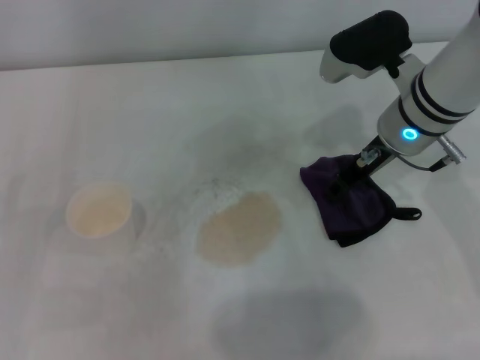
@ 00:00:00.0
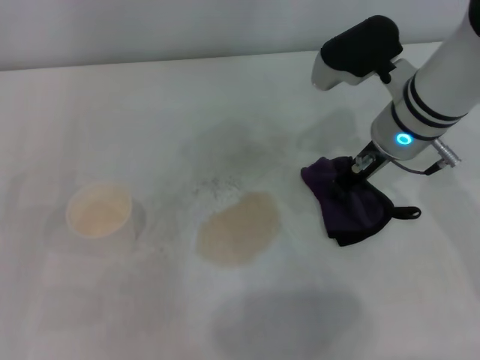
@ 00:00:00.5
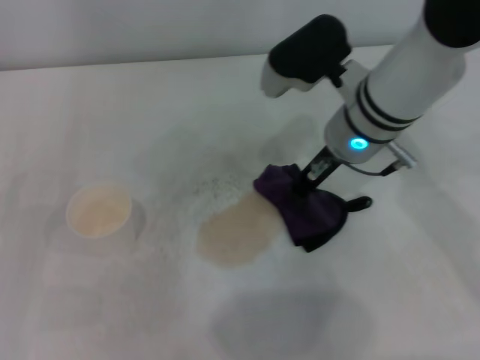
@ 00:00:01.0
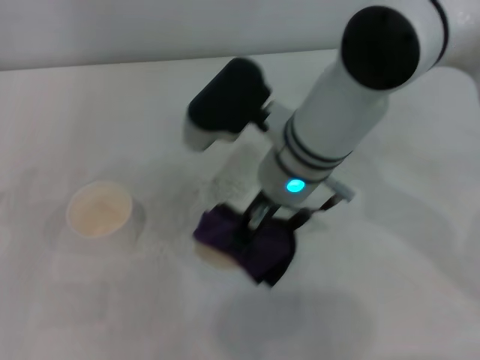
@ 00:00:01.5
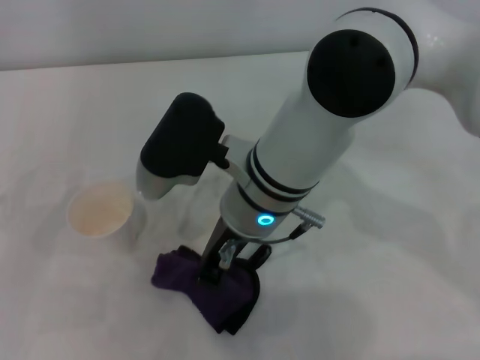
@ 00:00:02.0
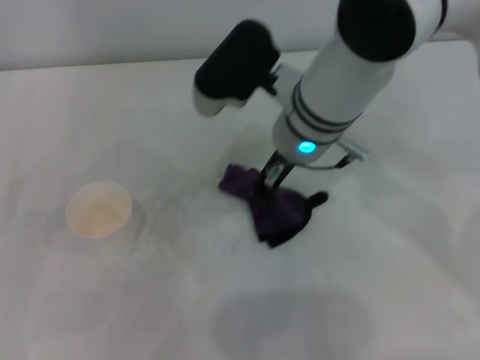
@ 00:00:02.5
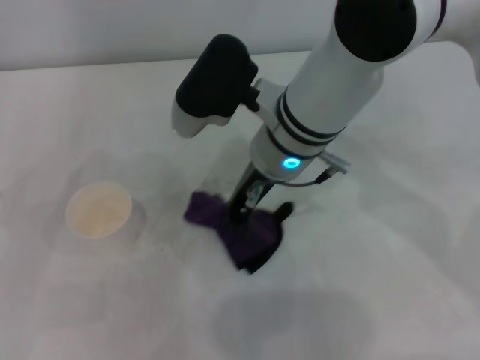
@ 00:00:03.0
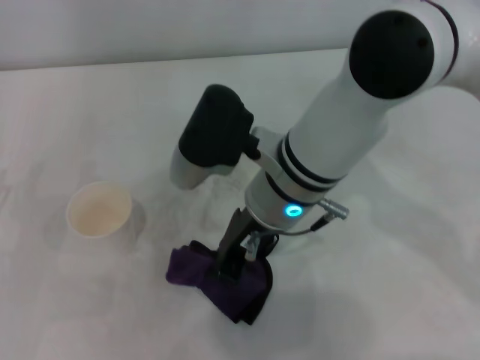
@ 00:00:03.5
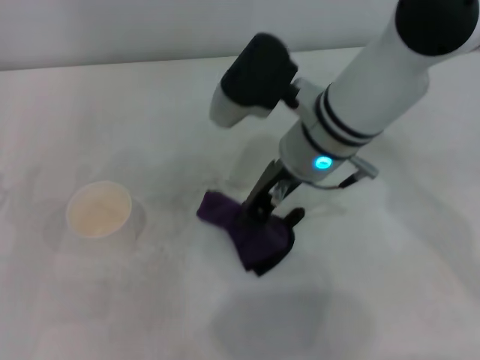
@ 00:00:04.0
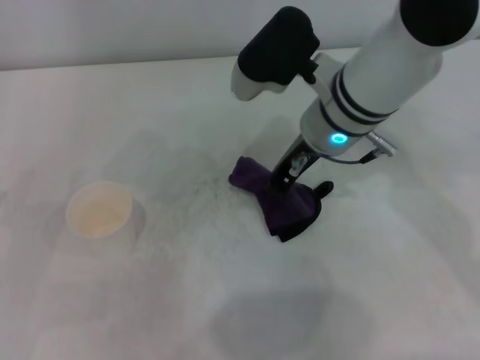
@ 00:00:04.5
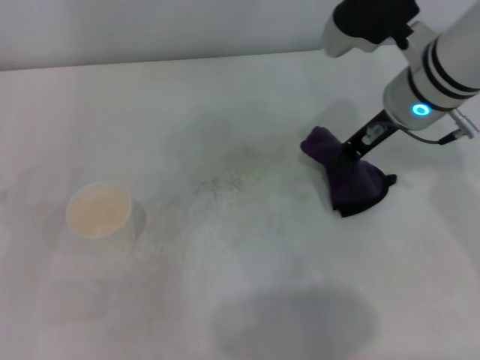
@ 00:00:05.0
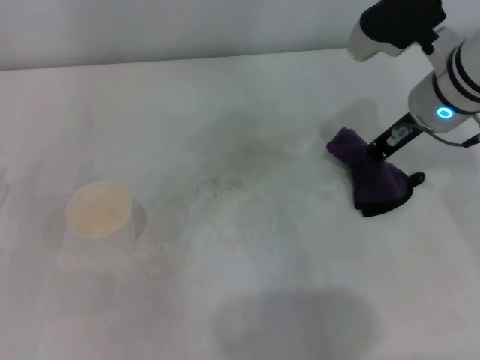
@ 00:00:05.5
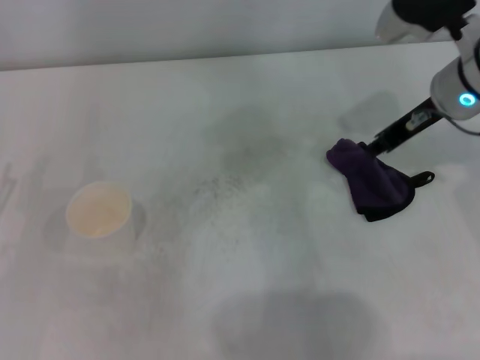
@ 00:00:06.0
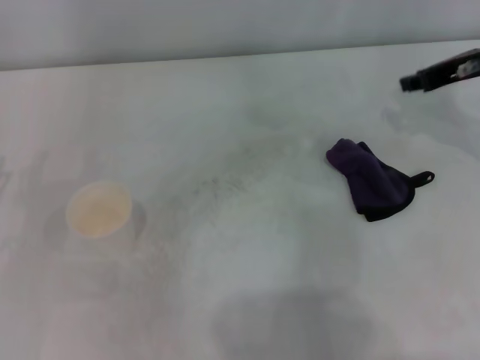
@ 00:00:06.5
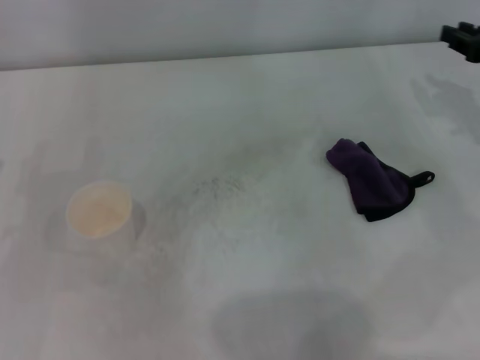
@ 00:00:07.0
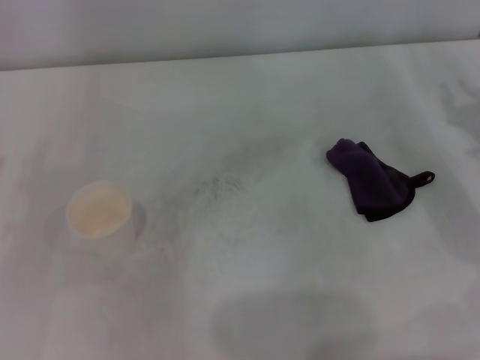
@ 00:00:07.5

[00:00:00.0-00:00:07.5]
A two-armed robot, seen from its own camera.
Step, 00:00:01.0 to 00:00:04.5: Wipe the stains off the table with the right gripper.
Step, 00:00:05.0 to 00:00:05.5: Place the rag on the table with the right gripper.
00:00:00.0 to 00:00:02.0: The right gripper heads to the left and backward, covering about 15 cm, and closes up.
00:00:02.0 to 00:00:04.0: The right gripper moves to the right, about 5 cm.
00:00:04.0 to 00:00:05.5: The right gripper shifts some 10 cm to the right.
00:00:05.5 to 00:00:07.5: The right gripper goes approximately 20 cm to the right, downward and backward.
